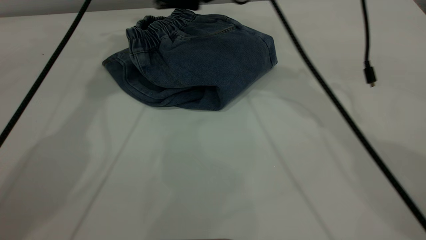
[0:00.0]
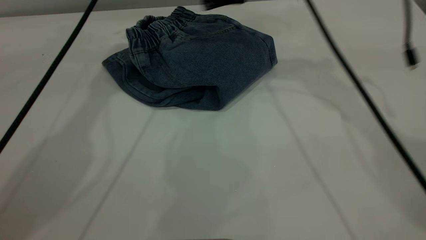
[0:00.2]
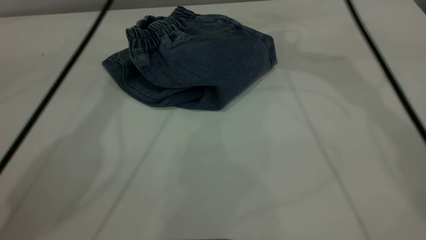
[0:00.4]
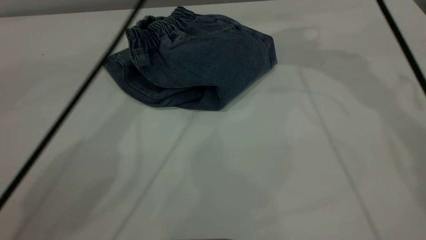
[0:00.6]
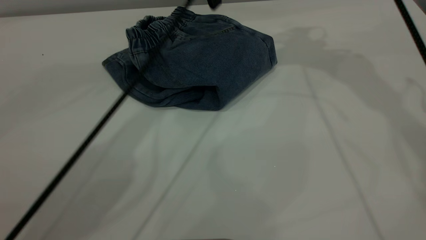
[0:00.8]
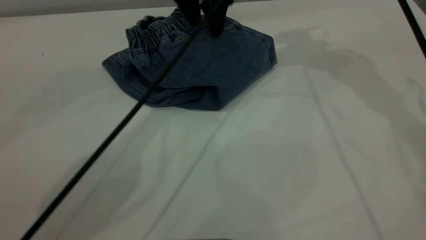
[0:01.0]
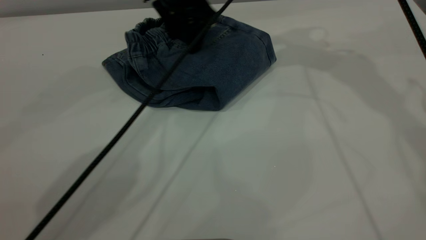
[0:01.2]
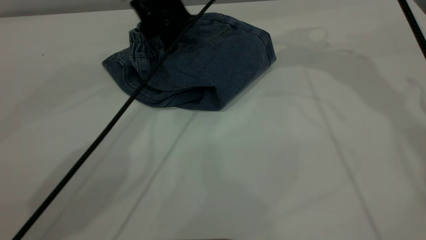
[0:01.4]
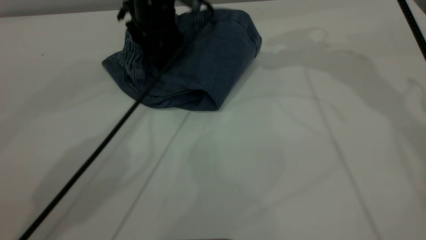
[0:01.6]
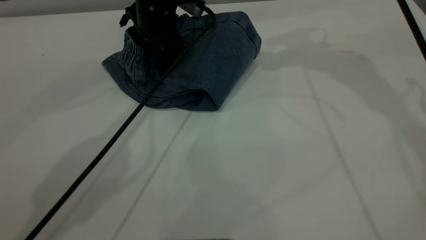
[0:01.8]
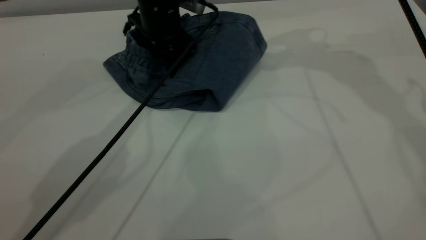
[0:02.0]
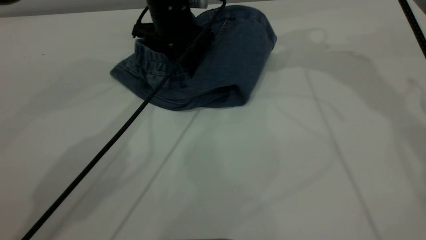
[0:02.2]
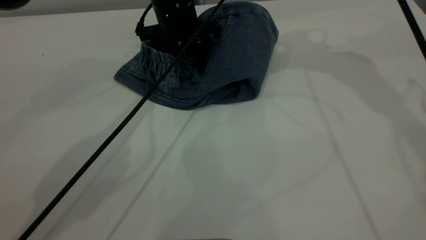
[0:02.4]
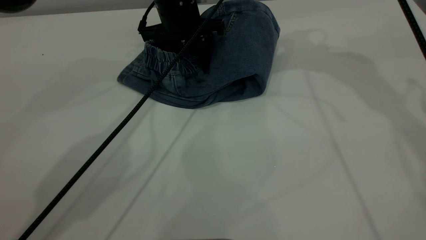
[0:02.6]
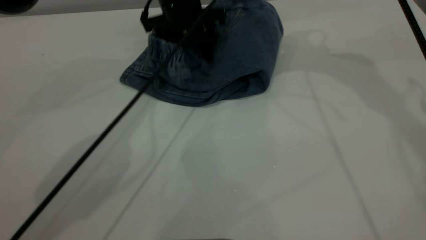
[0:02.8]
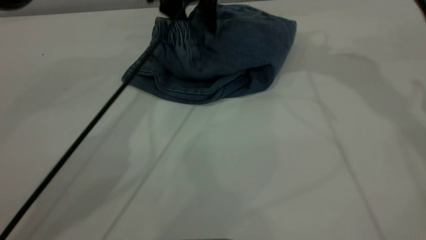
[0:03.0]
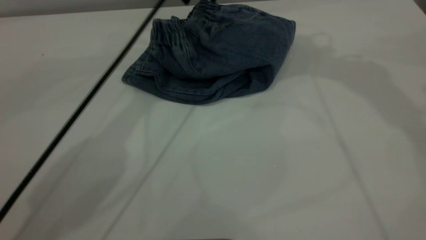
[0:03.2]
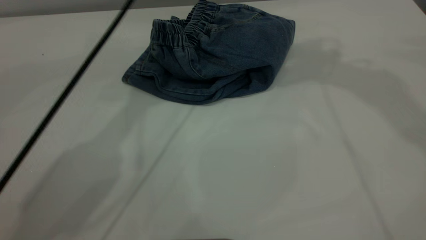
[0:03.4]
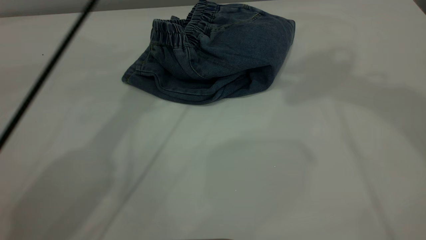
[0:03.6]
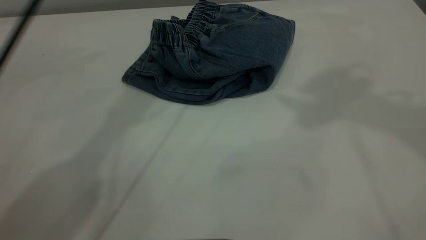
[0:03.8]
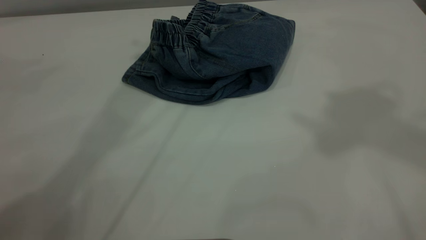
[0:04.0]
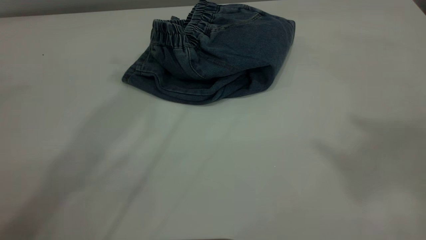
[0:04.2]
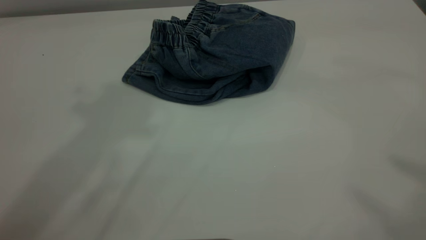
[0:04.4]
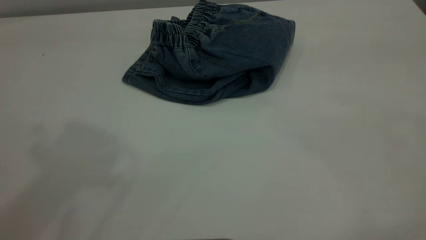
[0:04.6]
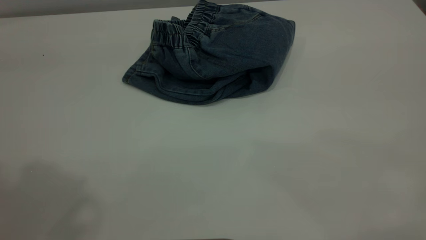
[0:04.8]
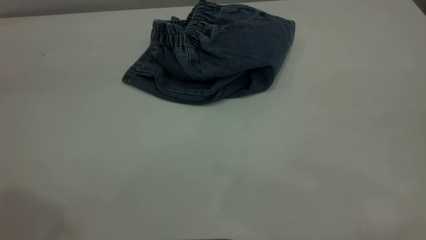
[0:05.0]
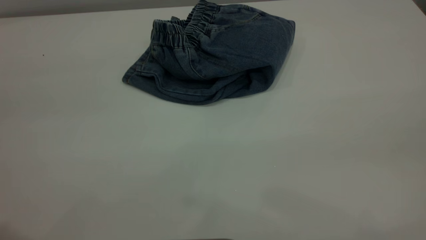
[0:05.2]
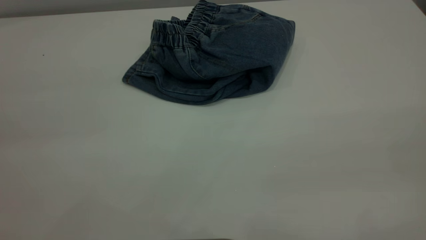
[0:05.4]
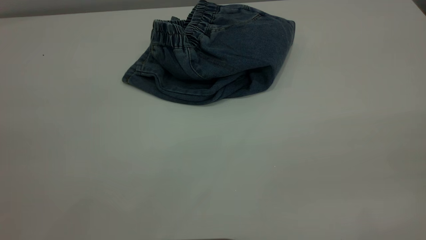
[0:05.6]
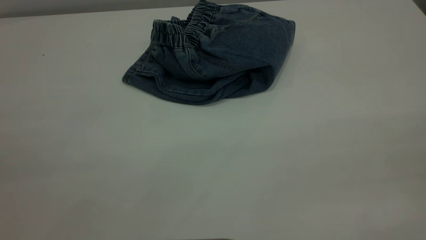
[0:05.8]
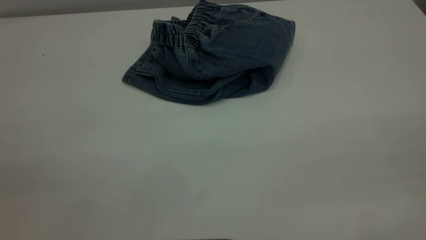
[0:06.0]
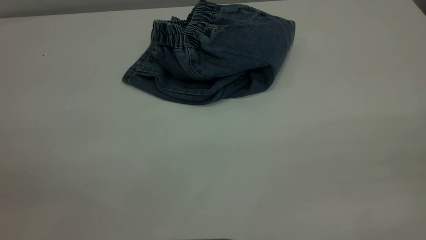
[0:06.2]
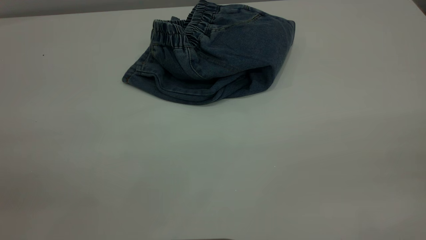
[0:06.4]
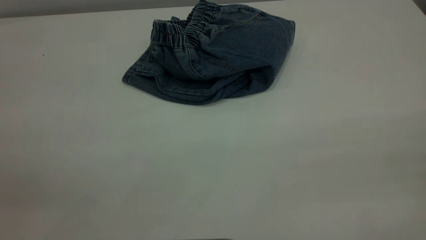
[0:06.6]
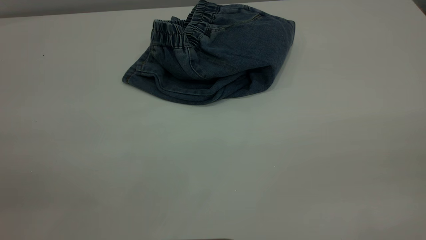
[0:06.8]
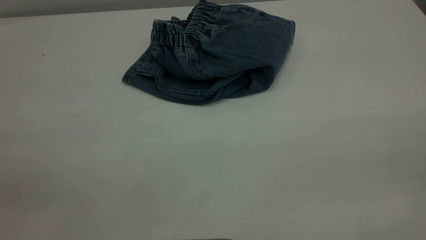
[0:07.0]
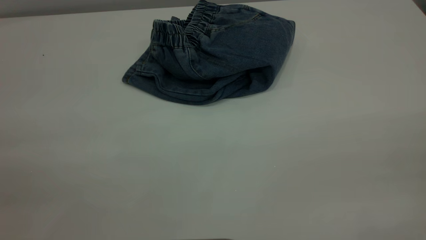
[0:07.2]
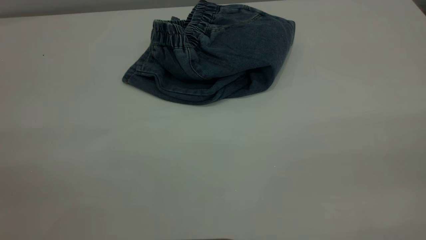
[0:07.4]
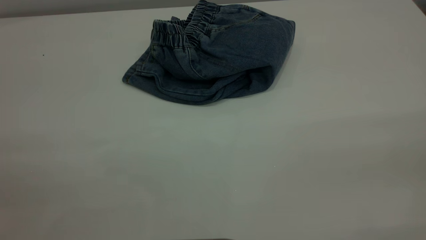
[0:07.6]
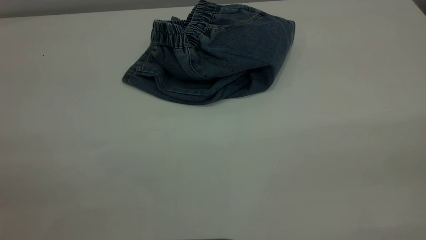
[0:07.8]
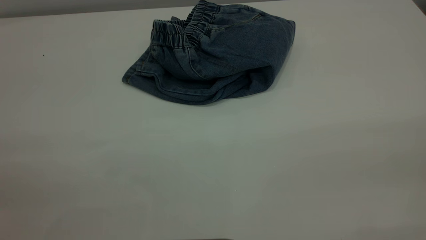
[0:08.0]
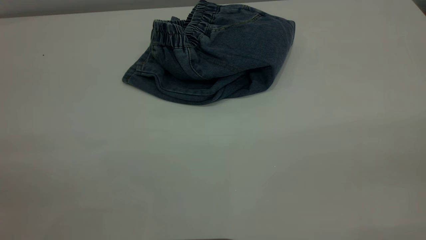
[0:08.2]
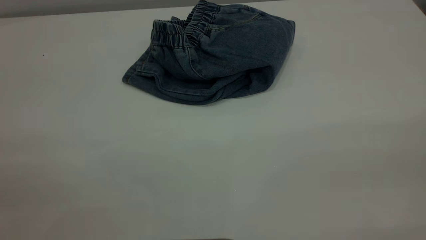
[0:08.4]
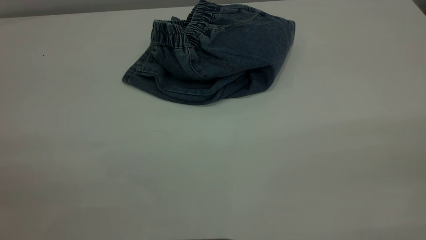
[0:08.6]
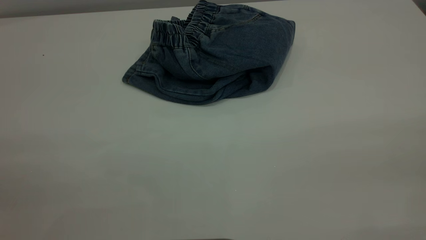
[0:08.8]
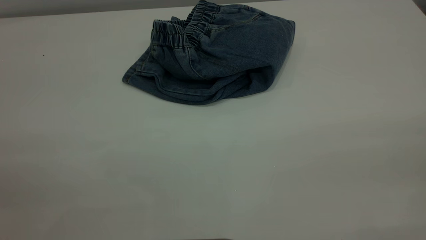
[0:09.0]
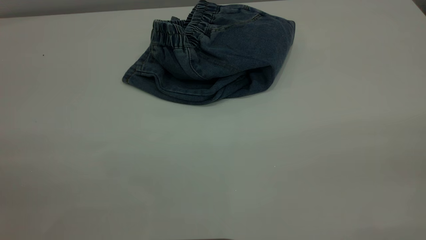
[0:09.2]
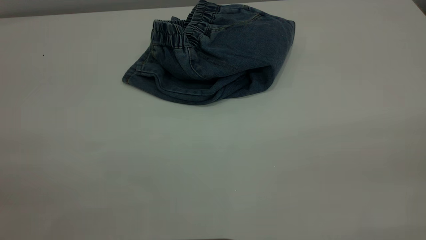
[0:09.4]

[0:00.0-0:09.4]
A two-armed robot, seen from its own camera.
0:00.0 to 0:01.6: The right gripper travels to the right and upward by approximately 15 cm. The left gripper travels downward and to the right by approximately 15 cm.
0:01.6 to 0:03.2: The two grippers go about 10 cm upward.
0:03.2 to 0:04.8: The left gripper moves backward, upward and to the left, approximately 50 cm.
